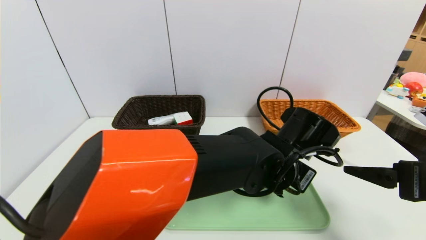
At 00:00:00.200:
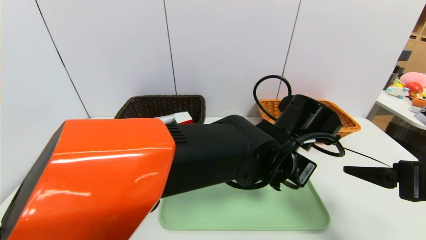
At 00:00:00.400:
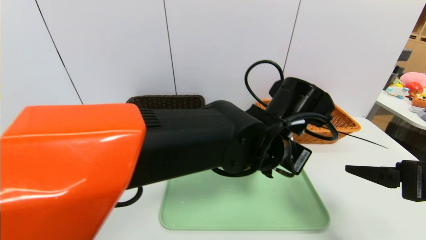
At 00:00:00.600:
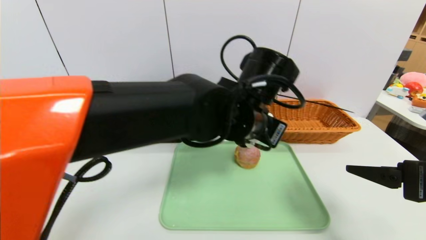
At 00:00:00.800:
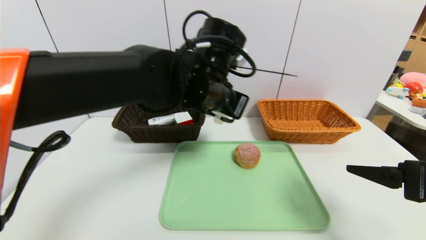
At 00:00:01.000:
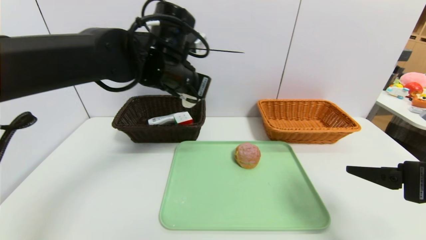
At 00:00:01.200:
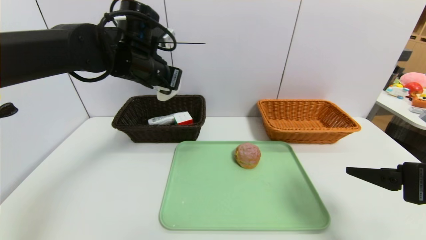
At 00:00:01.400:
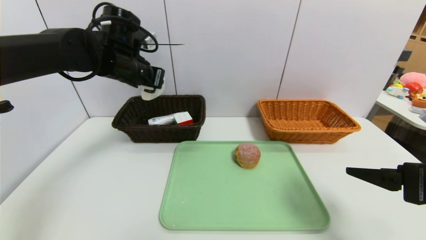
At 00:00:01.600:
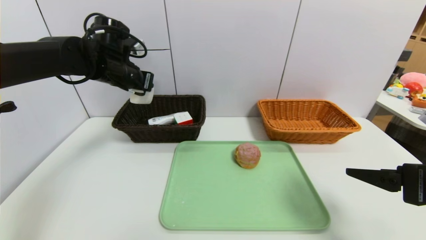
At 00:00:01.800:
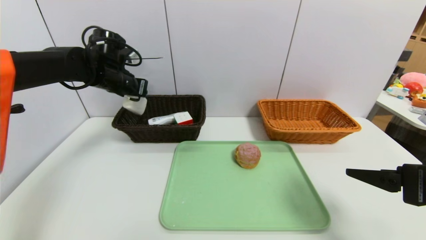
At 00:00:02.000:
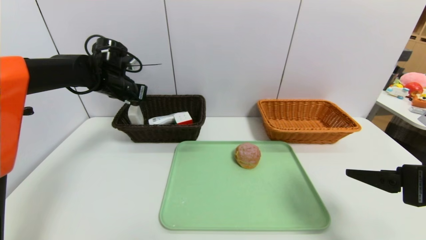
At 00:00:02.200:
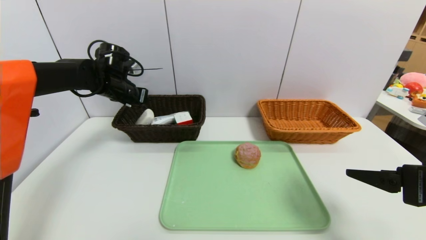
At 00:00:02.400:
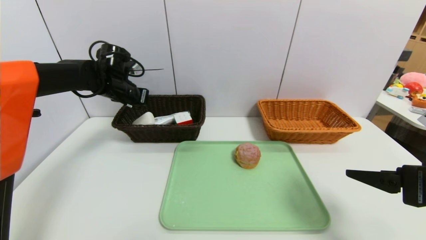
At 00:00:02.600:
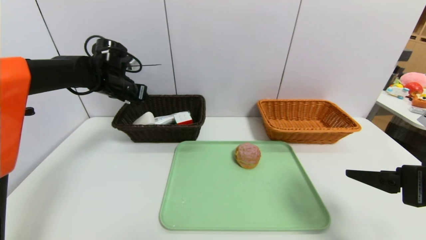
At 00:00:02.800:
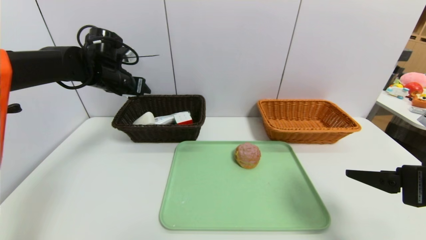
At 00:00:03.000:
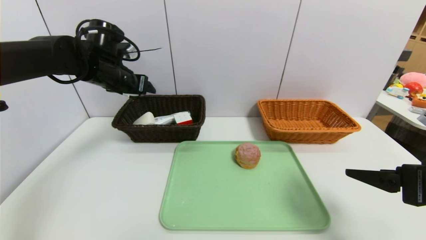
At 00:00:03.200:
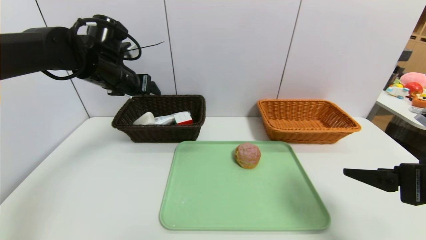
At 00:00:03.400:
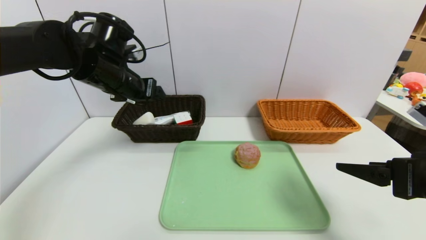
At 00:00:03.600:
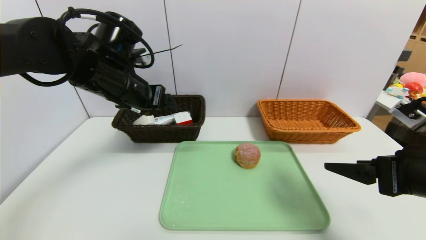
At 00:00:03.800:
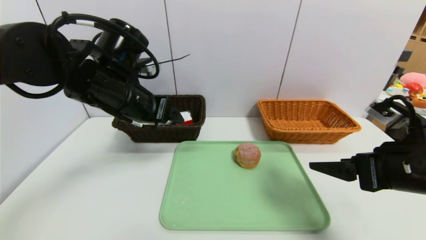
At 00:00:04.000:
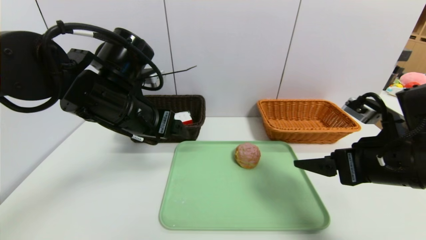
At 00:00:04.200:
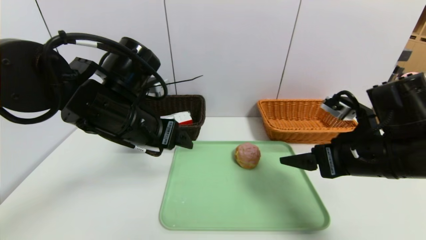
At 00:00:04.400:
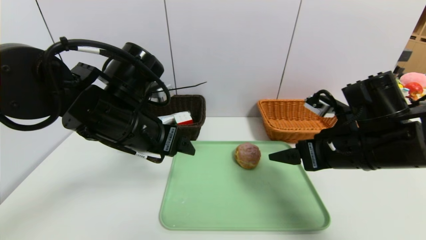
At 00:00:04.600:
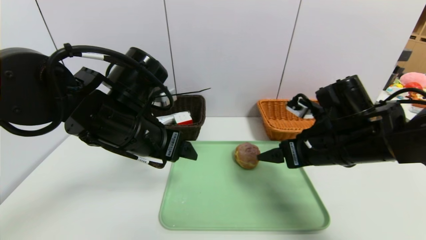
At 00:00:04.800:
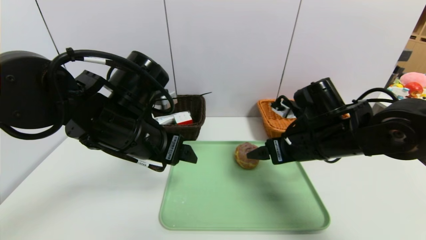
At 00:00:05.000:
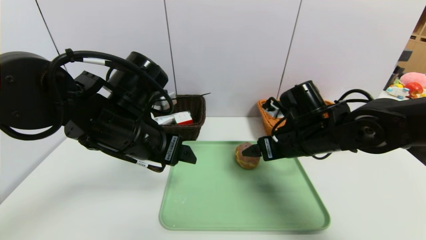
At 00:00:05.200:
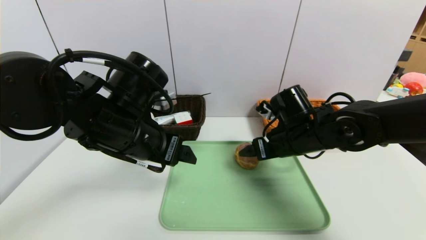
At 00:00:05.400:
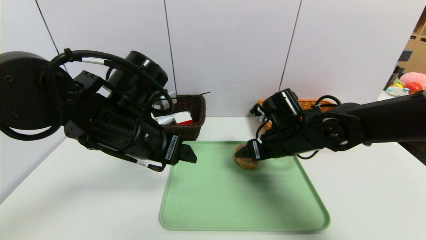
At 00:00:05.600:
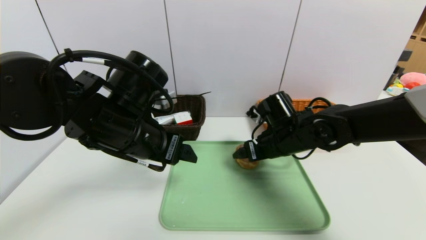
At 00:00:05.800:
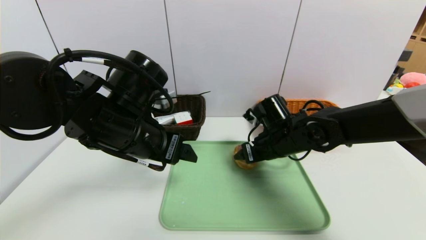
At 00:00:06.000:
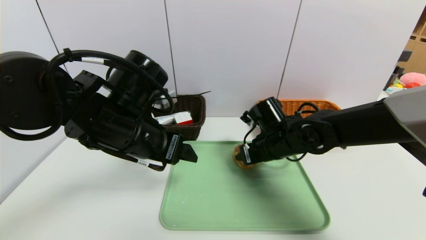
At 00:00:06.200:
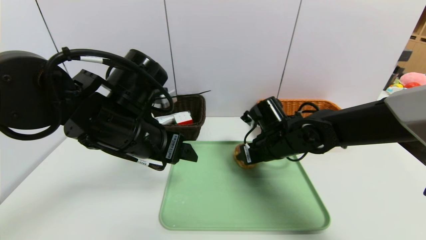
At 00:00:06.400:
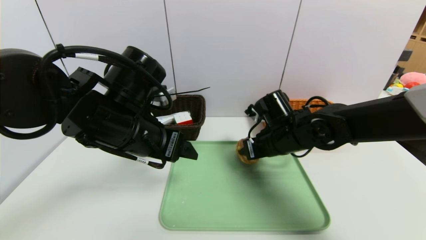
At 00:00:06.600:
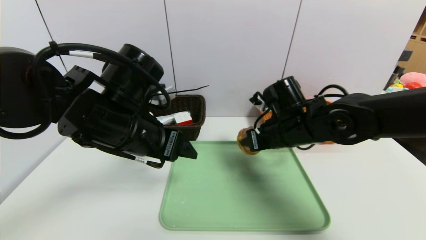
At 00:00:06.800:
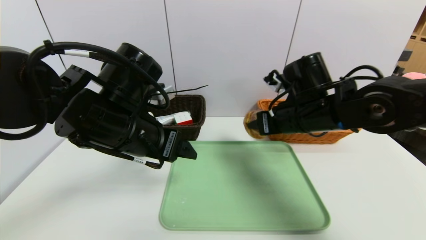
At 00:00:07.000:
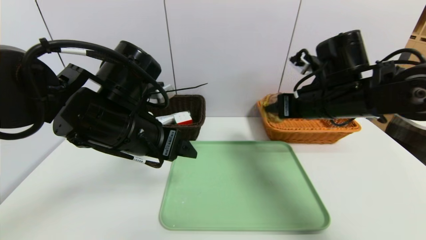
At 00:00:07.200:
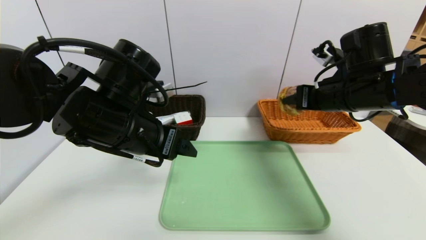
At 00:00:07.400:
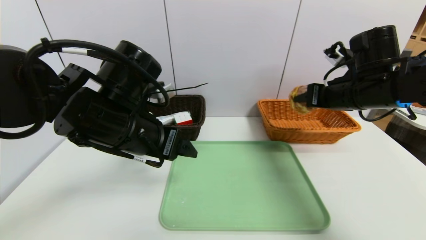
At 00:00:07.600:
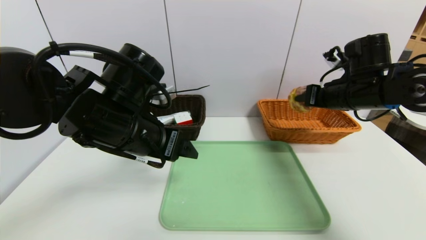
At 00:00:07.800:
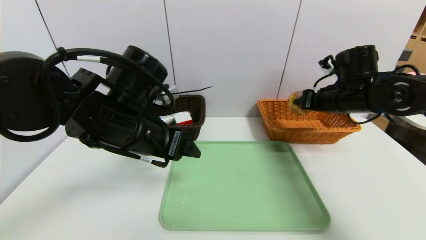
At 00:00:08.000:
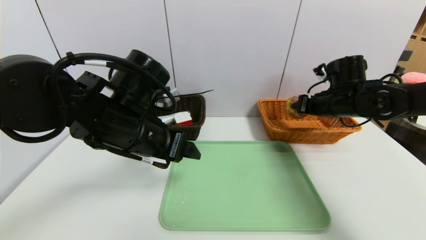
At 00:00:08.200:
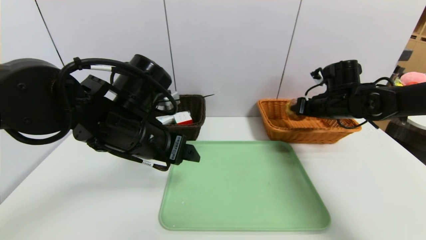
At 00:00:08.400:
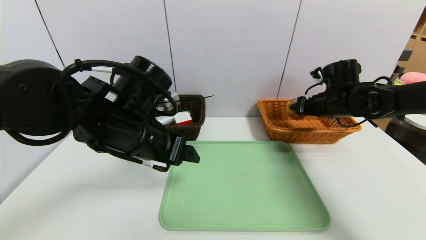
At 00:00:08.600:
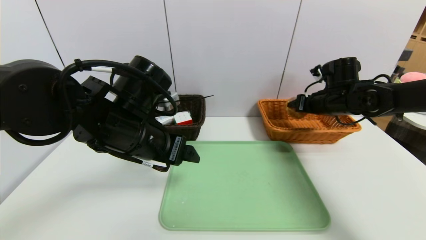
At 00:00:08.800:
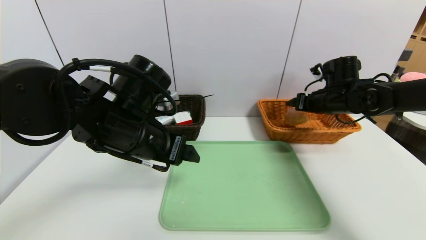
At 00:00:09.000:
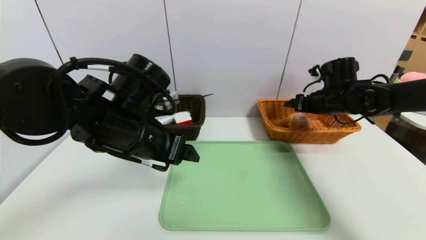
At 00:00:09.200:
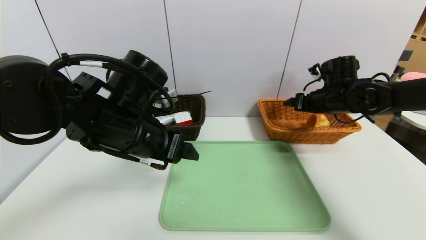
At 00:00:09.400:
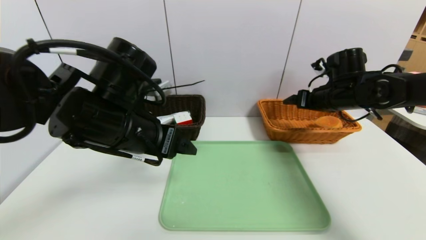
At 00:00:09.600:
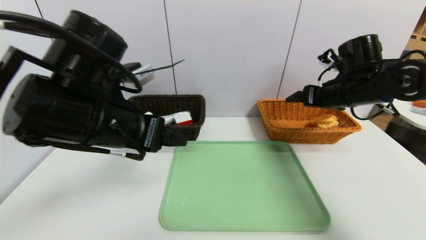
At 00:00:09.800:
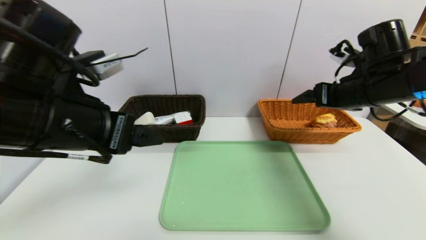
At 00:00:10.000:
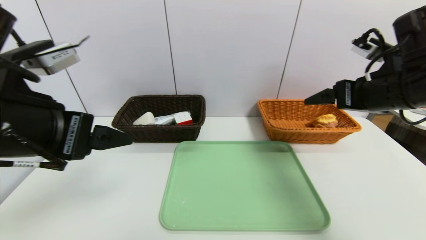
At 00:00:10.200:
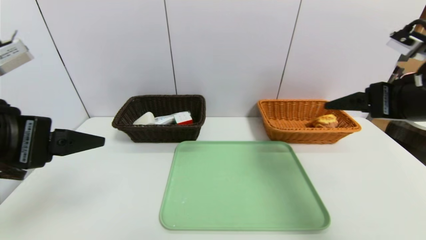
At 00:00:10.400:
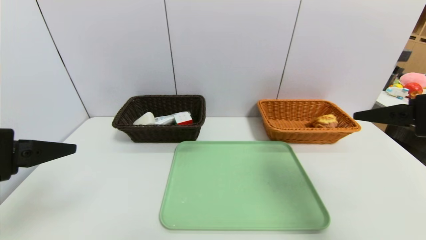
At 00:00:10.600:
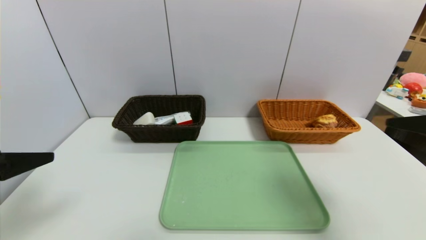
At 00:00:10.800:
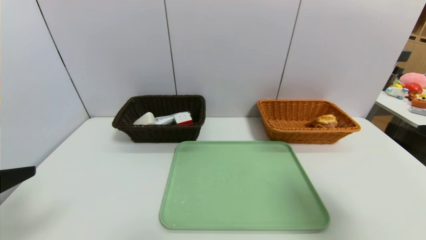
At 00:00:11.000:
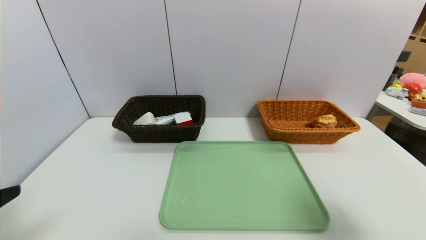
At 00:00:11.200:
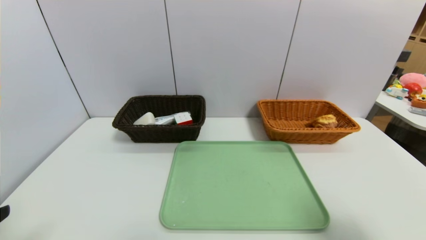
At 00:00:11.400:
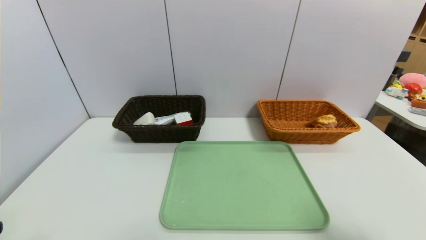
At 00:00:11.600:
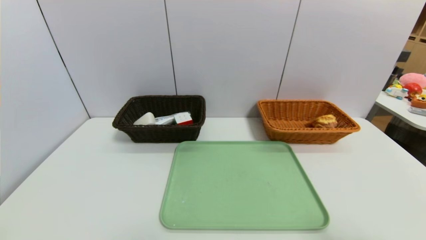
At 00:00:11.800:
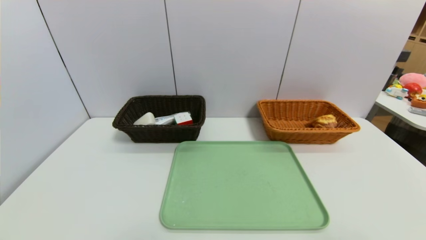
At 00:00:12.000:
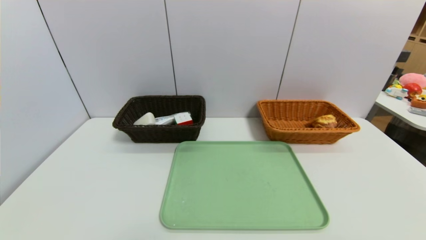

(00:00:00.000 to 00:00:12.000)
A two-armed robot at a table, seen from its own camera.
Task of the whole recording: place the food in the right basket with the right gripper, and place the non food items in the left basket with the left gripper.
Step, 00:00:00.000 - 00:00:03.200: Grasp the soap and put it in the left basket.
Step, 00:00:03.400 - 00:00:09.800: Grasp the round bread and put it in the right basket.
00:00:00.000 - 00:00:01.600: The left gripper is displaced to the left and forward by about 40 cm.
00:00:01.600 - 00:00:03.000: The left gripper opens its fingers.
00:00:03.000 - 00:00:04.400: The right gripper moves forward and to the left, about 15 cm; the left gripper travels backward and to the right by about 20 cm.
00:00:04.400 - 00:00:06.000: The right gripper shifts roughly 15 cm forward, to the left and downward, and closes its fingers.
00:00:06.000 - 00:00:07.600: The right gripper heads to the right and upward, covering some 20 cm.
00:00:07.600 - 00:00:09.000: The right gripper travels forward by about 5 cm, and opens.
00:00:09.000 - 00:00:10.400: The right gripper is displaced backward and upward by roughly 30 cm. The left gripper moves to the left, backward and upward, approximately 20 cm.
00:00:10.400 - 00:00:12.000: The right gripper is displaced backward by roughly 20 cm, while the left gripper goes approximately 20 cm backward and downward.
